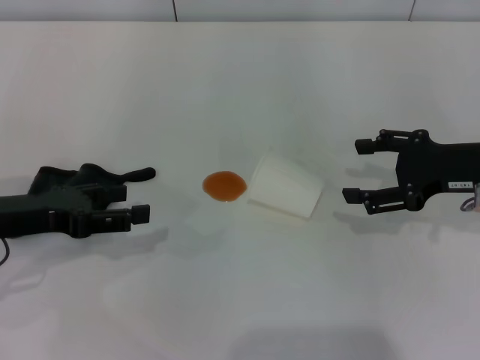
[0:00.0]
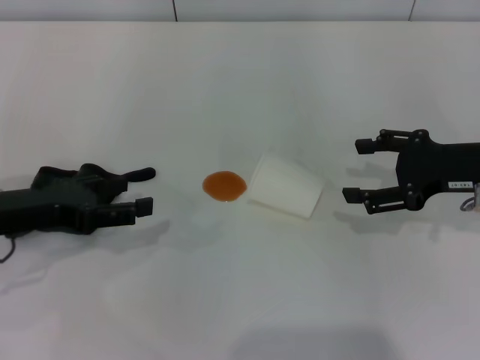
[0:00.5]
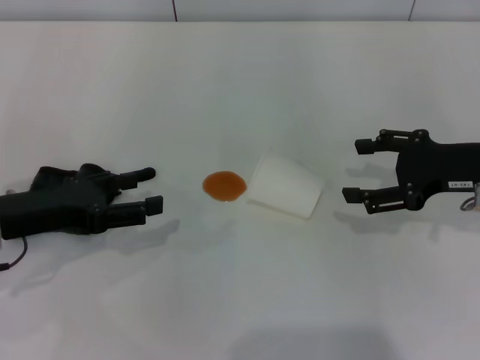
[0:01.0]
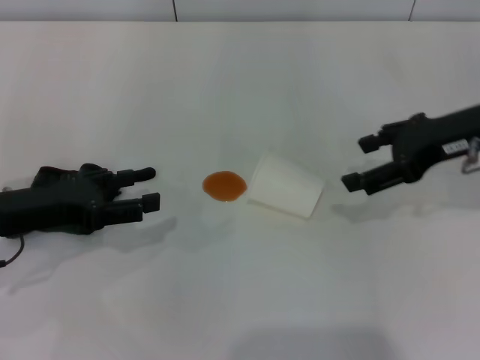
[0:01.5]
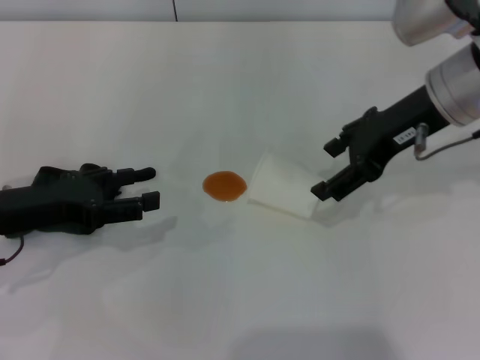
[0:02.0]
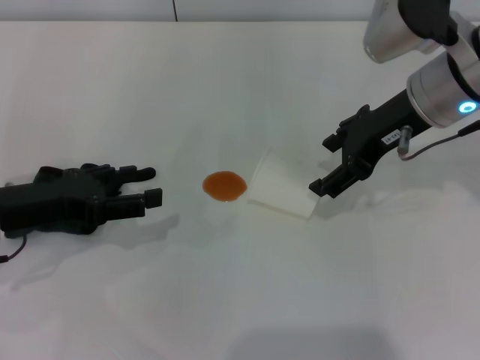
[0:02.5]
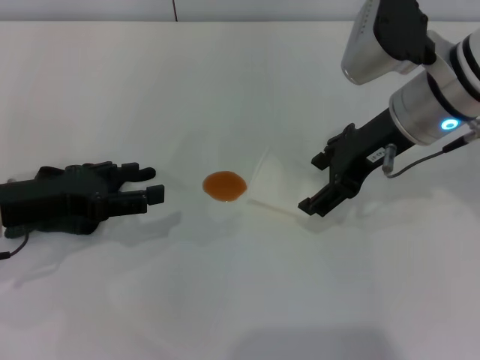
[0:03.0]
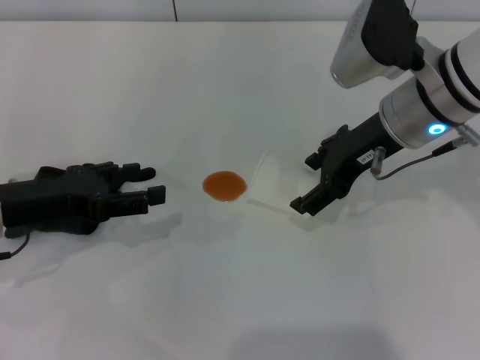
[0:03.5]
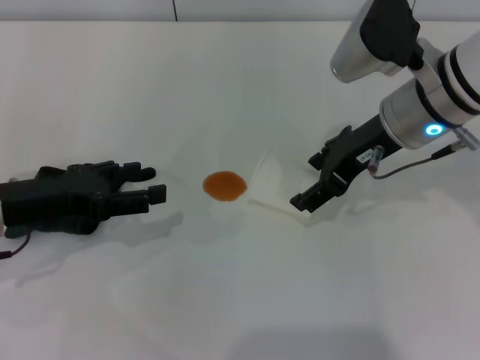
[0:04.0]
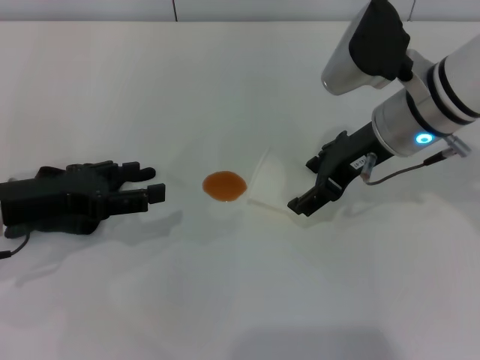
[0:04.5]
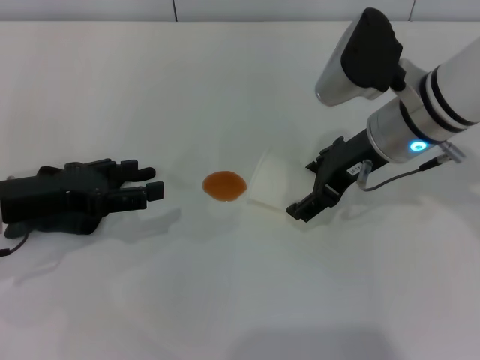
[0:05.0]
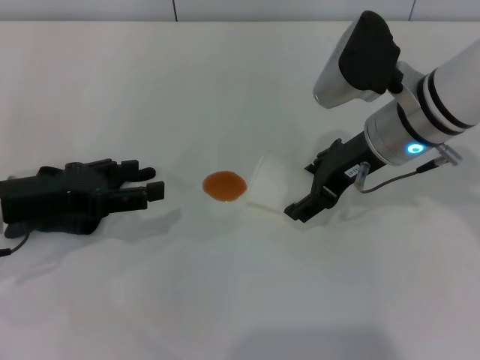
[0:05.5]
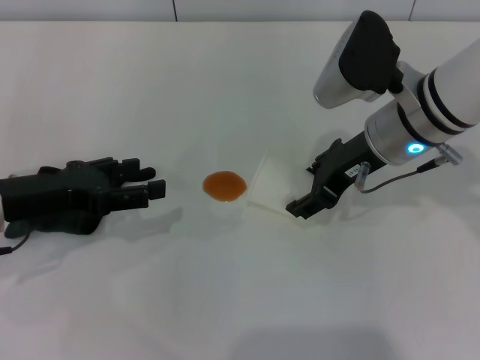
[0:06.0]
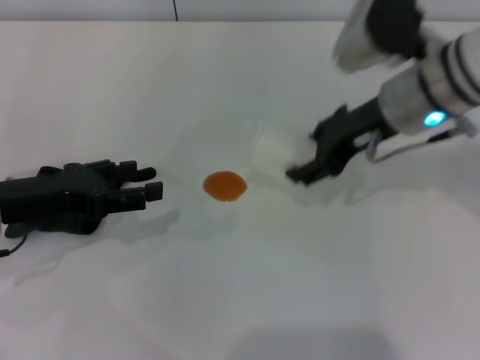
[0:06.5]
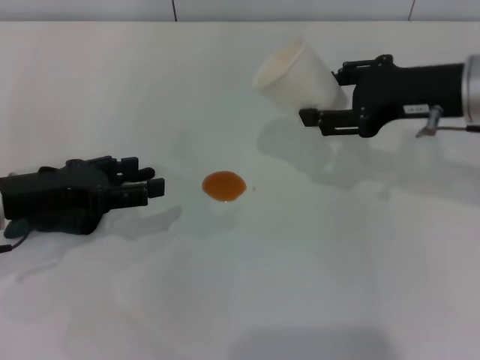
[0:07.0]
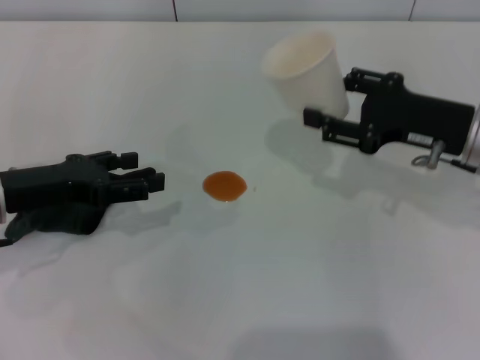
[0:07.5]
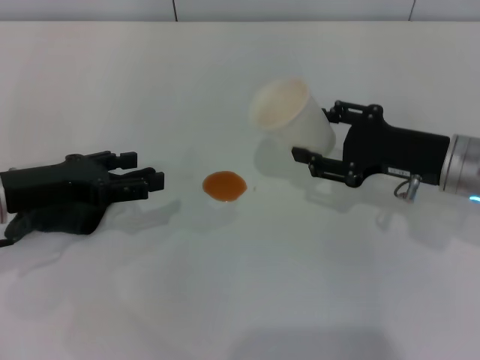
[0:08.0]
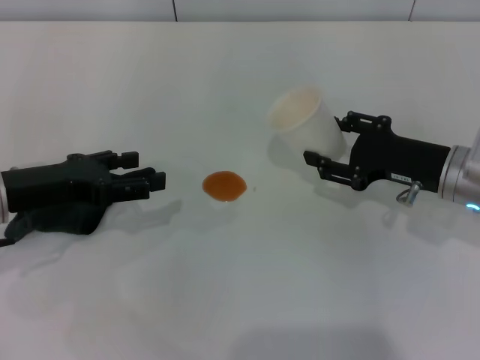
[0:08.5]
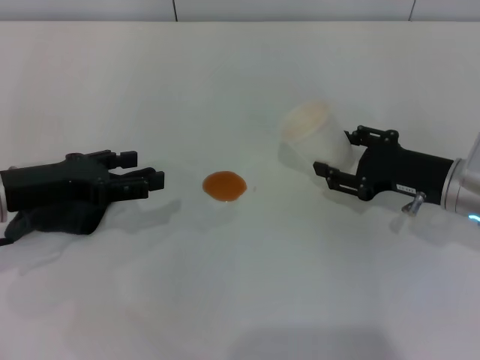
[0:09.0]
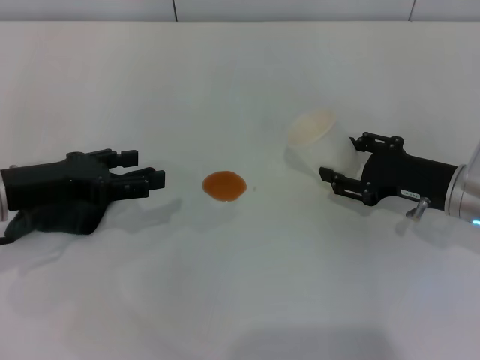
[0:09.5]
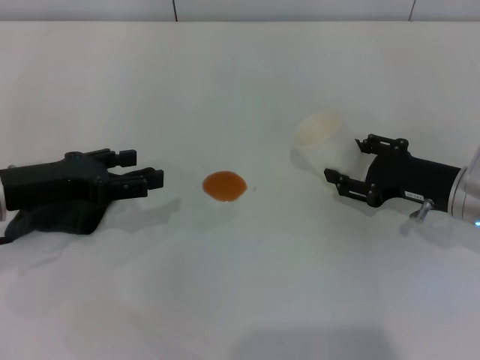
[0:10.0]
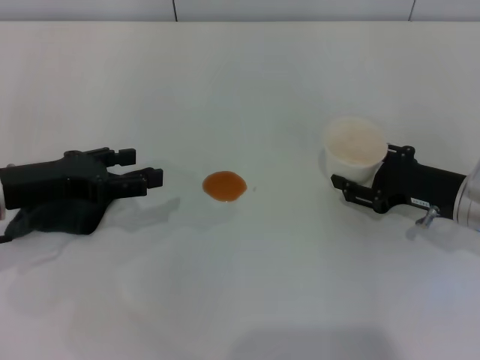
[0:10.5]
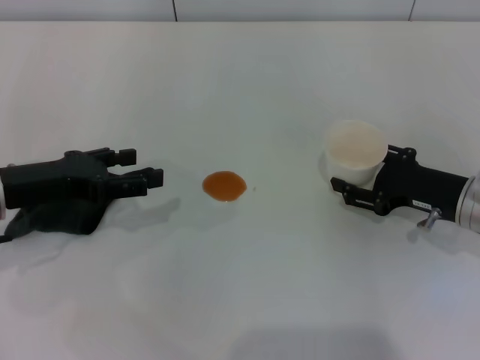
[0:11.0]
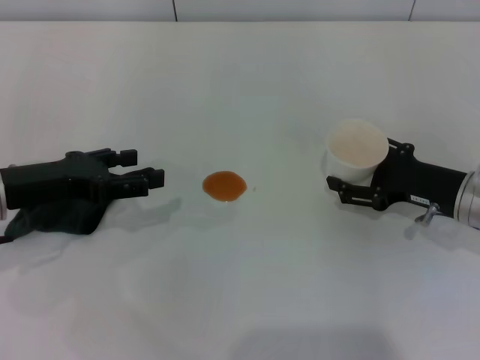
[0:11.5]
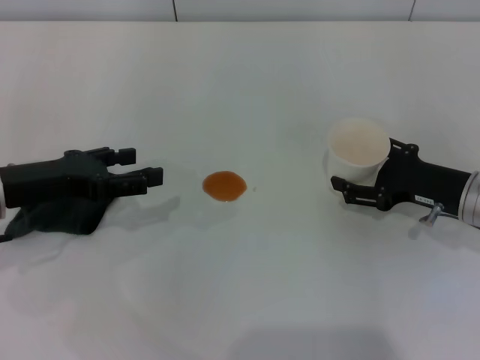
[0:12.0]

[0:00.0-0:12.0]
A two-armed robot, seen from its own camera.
Step, 0:00.0 to 0:06.0: Grasp the paper cup with the right gripper.
0:00.0 to 0:02.0: The right gripper goes approximately 15 cm to the left and upward.
0:02.0 to 0:04.0: The grippers make only small movements.
0:04.0 to 0:06.0: The right gripper closes its fingers.
0:06.0 to 0:08.0: The right gripper shifts some 10 cm to the right and downward.
0:08.0 to 0:10.0: The right gripper changes place by roughly 5 cm.
0:10.0 to 0:12.0: The right gripper opens up.

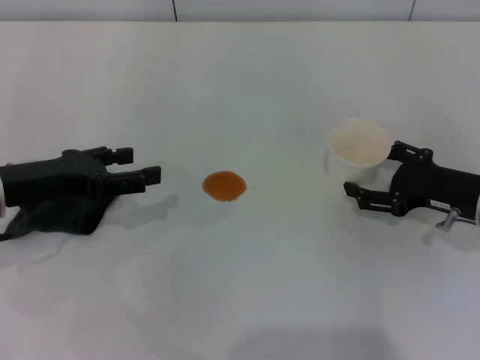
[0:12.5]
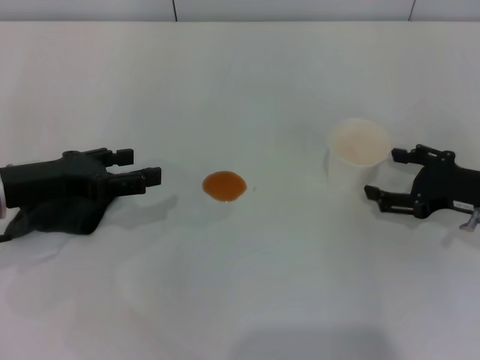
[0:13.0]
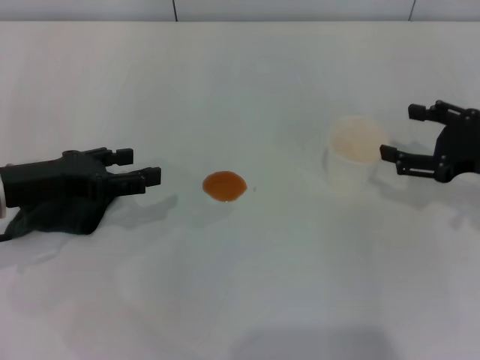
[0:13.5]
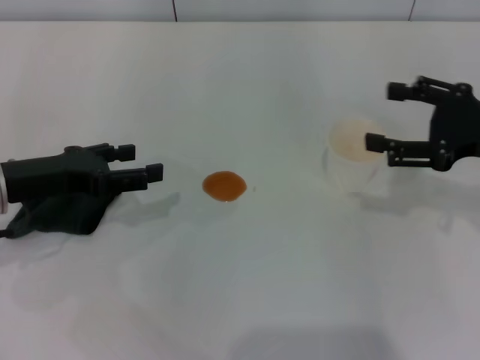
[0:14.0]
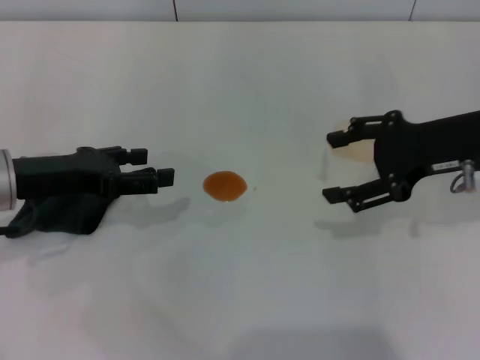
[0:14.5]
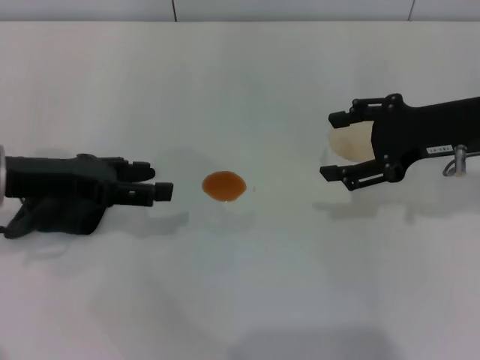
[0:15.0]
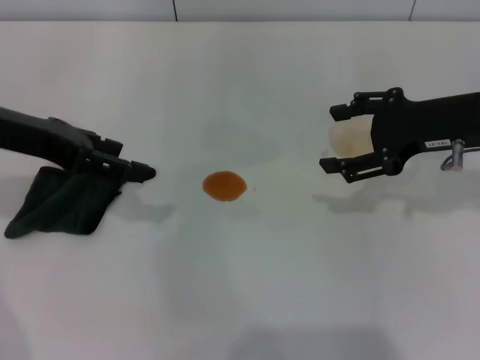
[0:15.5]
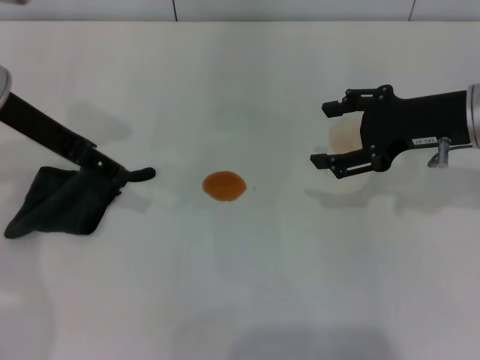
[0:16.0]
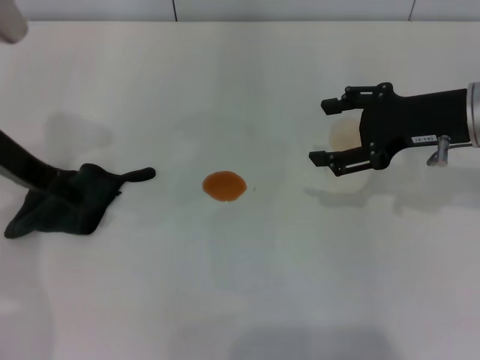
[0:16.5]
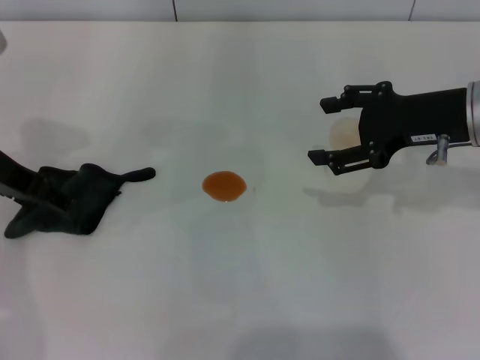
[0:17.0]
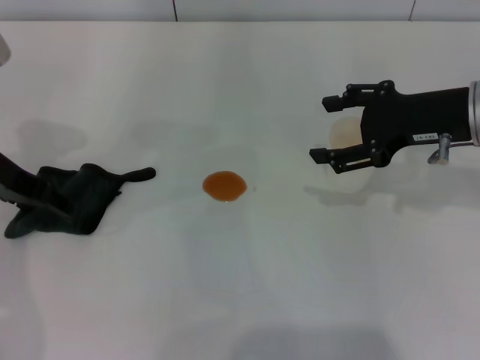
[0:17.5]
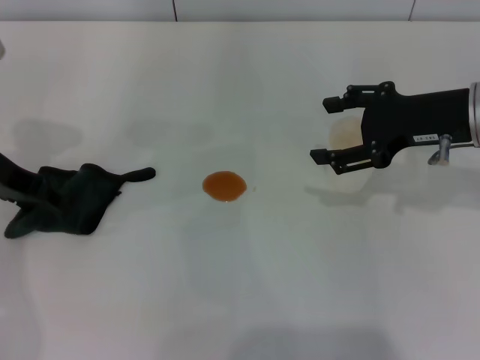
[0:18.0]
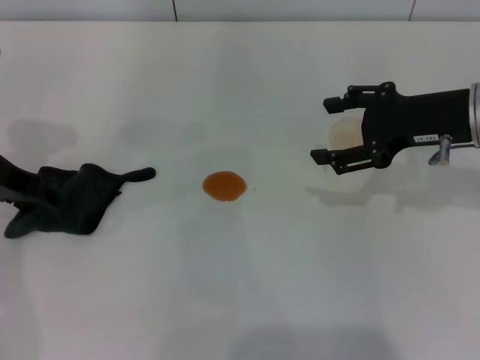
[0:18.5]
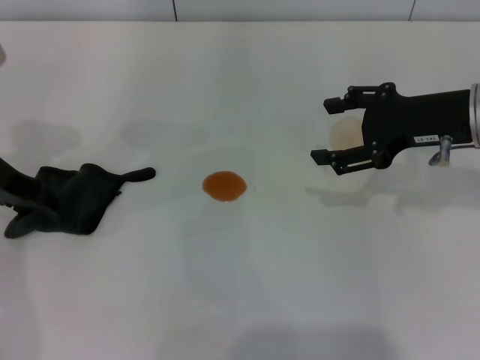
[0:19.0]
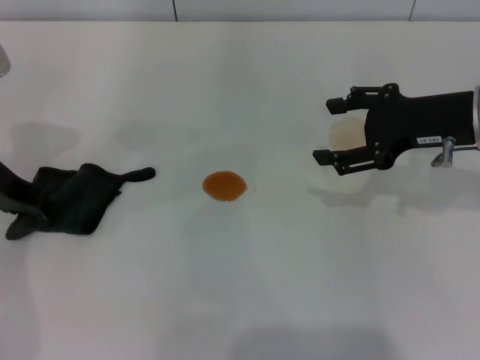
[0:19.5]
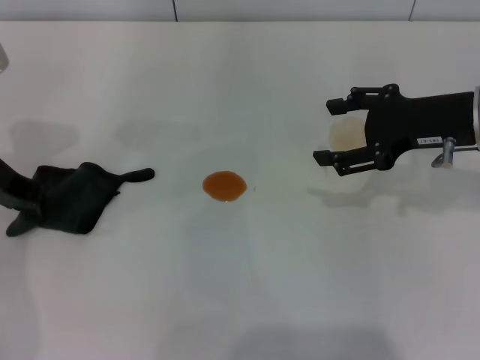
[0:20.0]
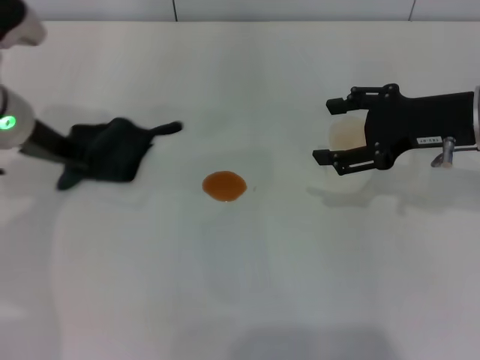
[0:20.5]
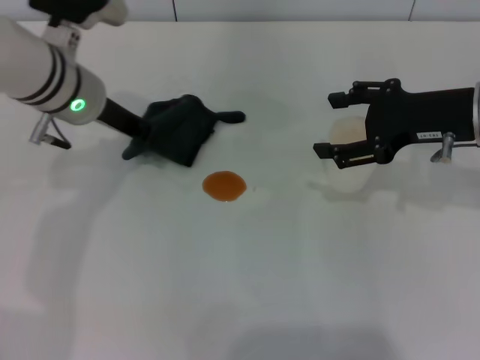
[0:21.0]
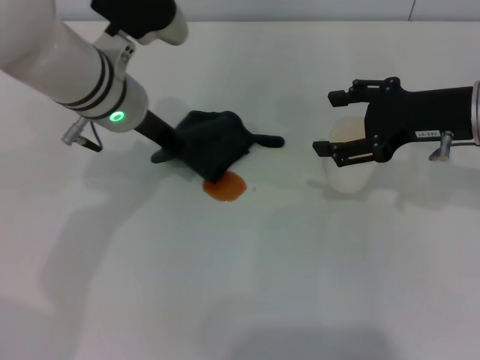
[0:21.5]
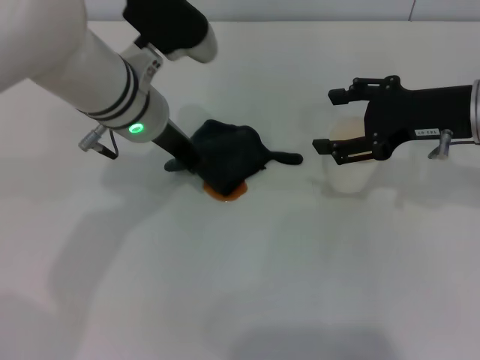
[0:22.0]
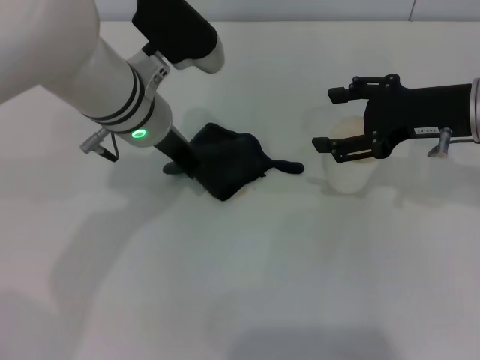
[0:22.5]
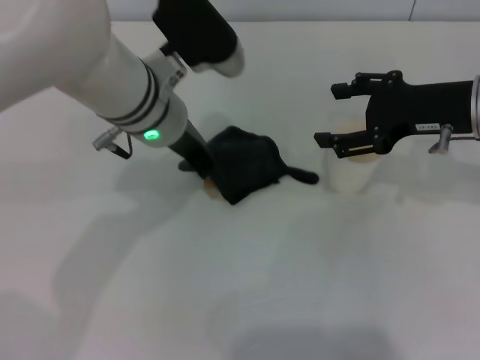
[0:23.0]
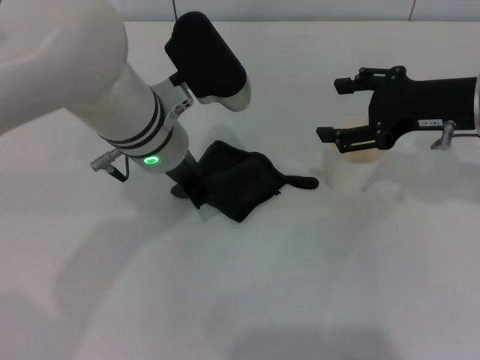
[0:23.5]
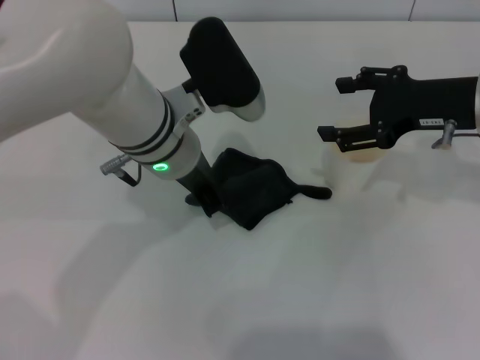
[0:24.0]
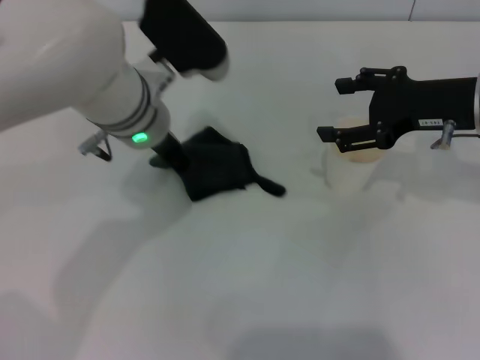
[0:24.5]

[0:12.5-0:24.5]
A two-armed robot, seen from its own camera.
Step, 0:13.5 to 0:20.0: Grasp the rag with the left gripper.
0:12.5 to 0:14.5: The right gripper shifts about 10 cm upward.
0:14.5 to 0:16.5: The left gripper heads upward, covering approximately 10 cm.
0:16.5 to 0:18.5: There are only small adjustments of the grippers.
0:18.5 to 0:20.5: The left gripper moves approximately 5 cm, and closes.
0:20.5 to 0:22.5: The left gripper moves to the right, some 15 cm.
0:22.5 to 0:24.5: The grippers make only small movements.

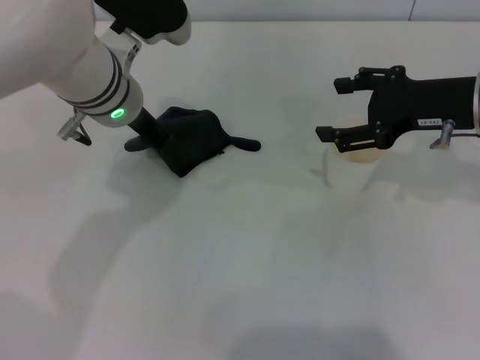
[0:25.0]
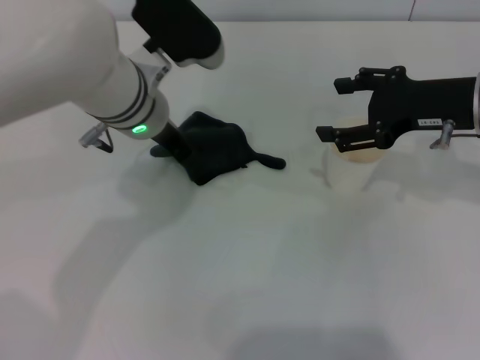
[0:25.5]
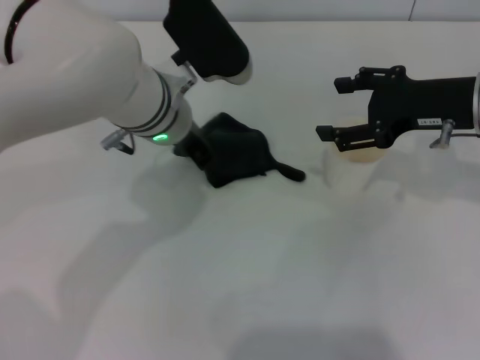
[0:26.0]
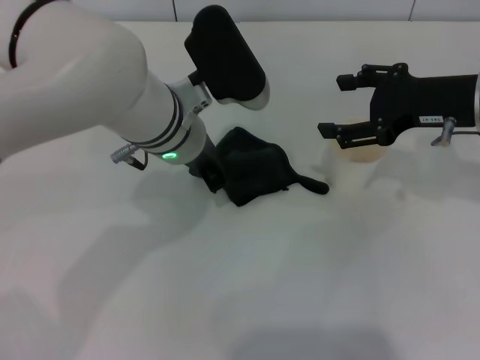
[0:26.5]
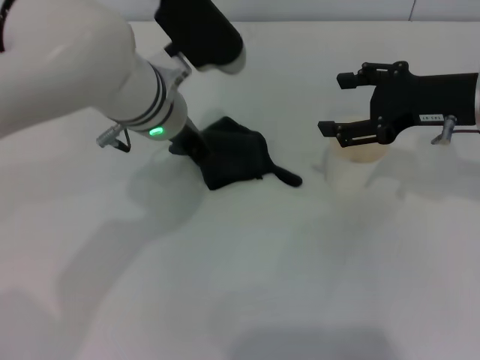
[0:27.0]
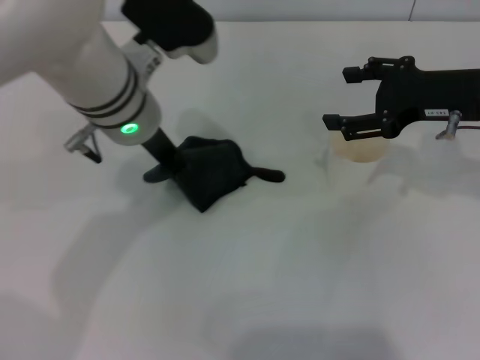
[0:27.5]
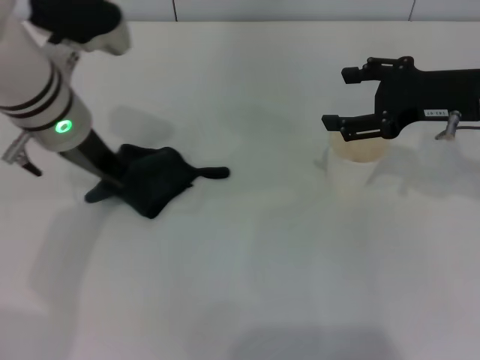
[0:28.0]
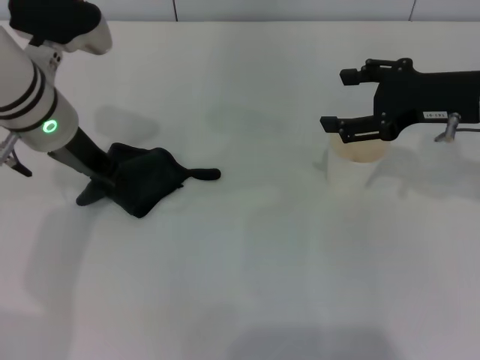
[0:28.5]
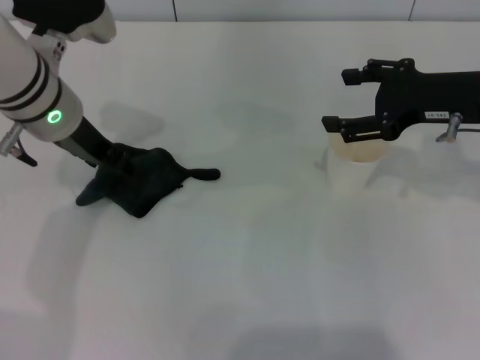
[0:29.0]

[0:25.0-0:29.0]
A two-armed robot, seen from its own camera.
Step, 0:25.0 to 0:27.5: Wipe the stains off the table with the left gripper.
0:27.0 to 0:29.0: The left gripper travels to the left by about 10 cm.
